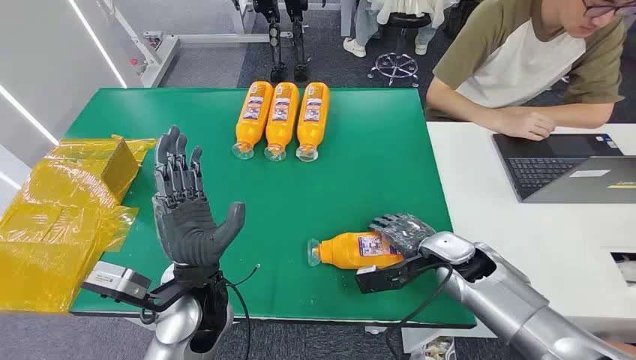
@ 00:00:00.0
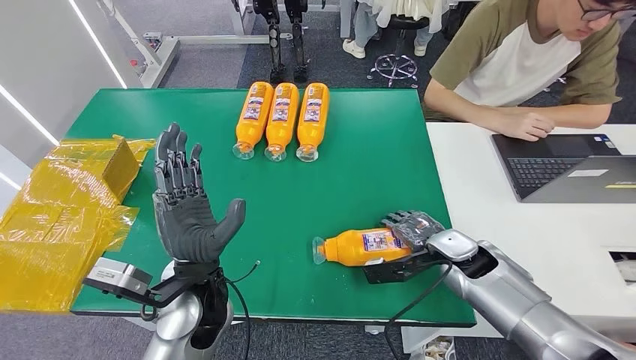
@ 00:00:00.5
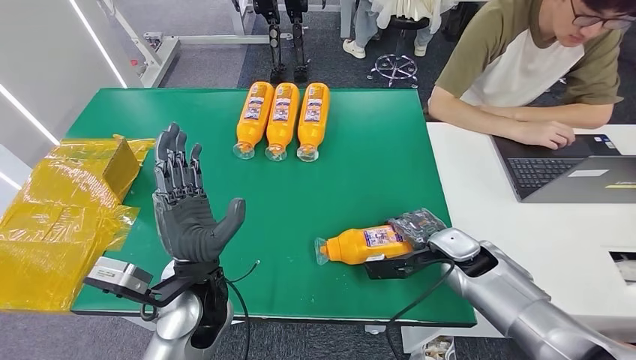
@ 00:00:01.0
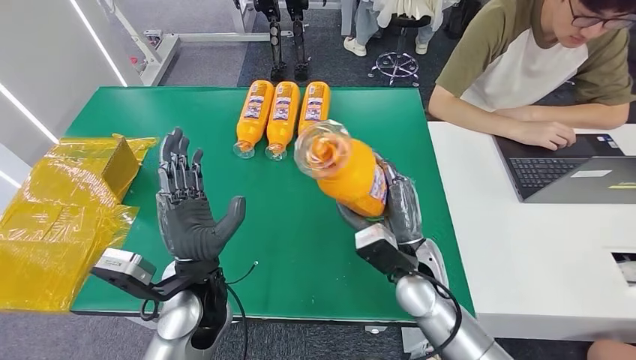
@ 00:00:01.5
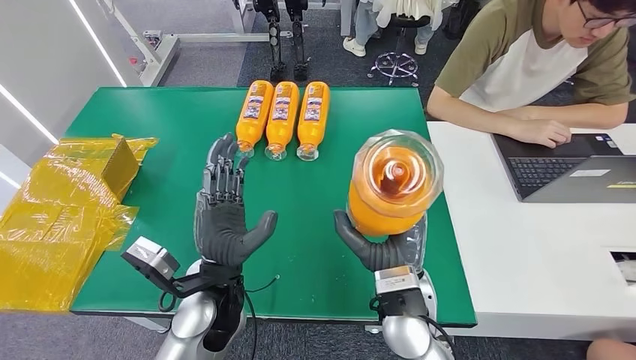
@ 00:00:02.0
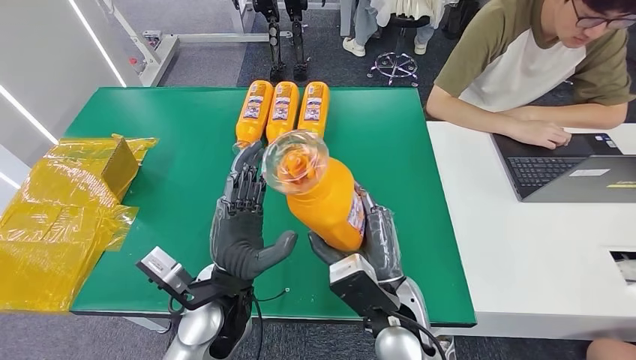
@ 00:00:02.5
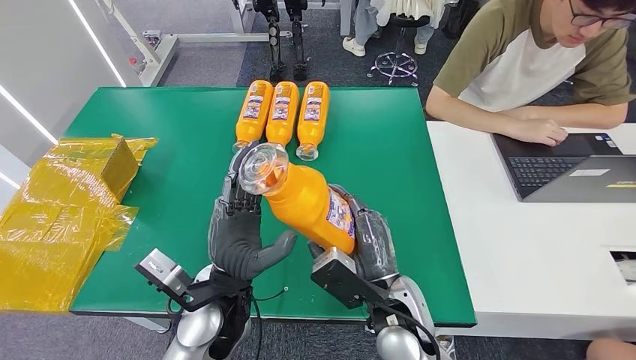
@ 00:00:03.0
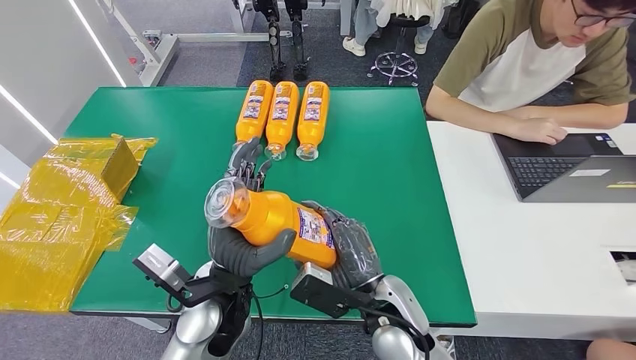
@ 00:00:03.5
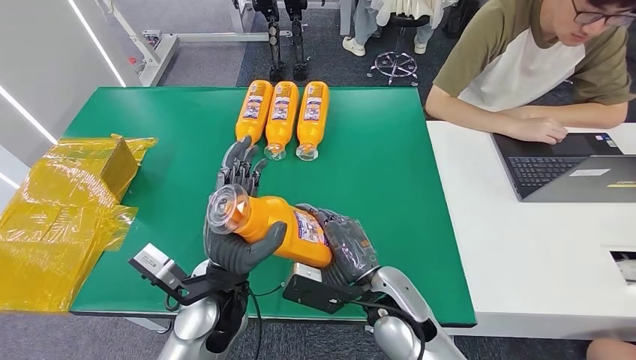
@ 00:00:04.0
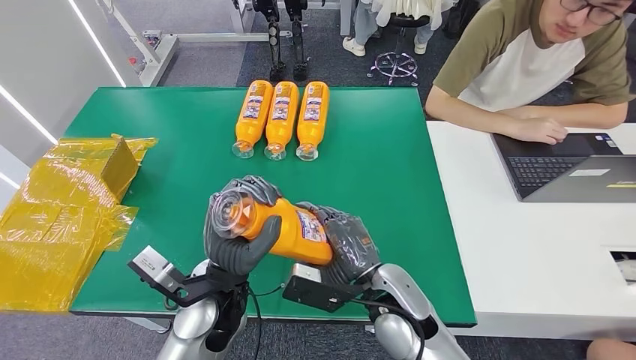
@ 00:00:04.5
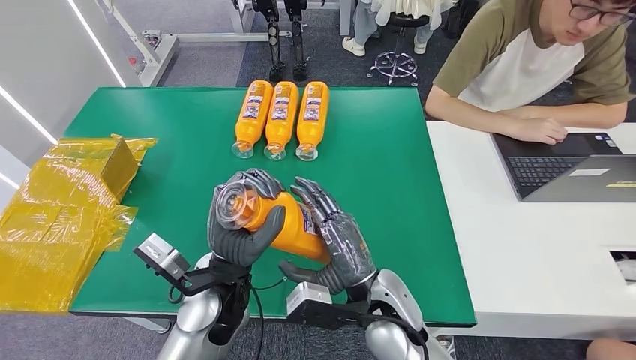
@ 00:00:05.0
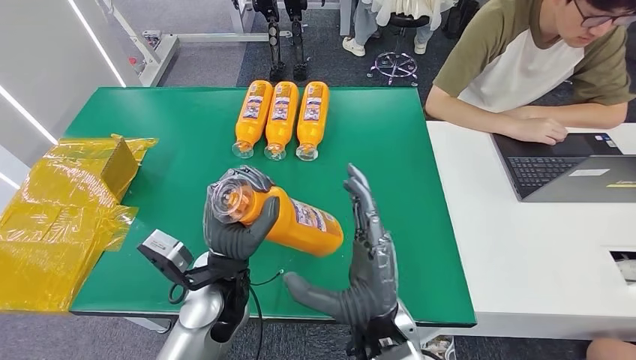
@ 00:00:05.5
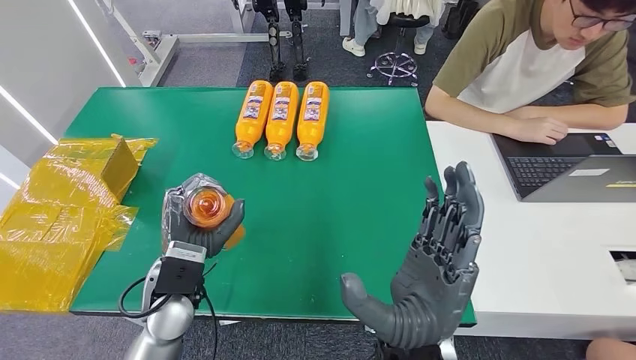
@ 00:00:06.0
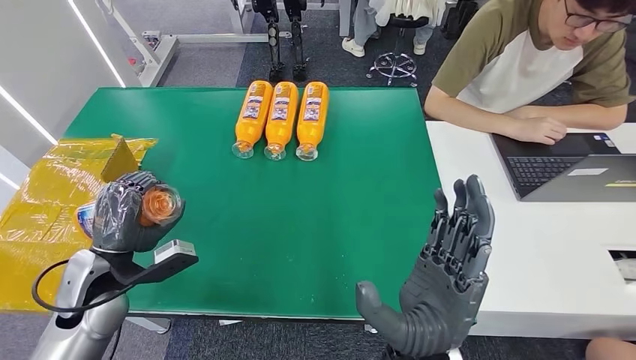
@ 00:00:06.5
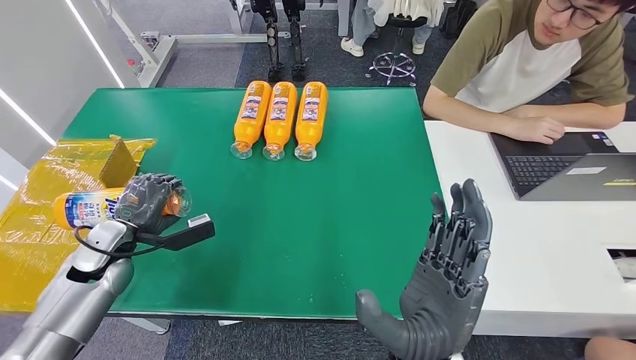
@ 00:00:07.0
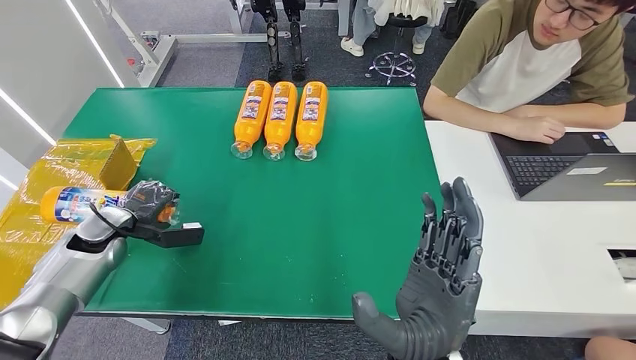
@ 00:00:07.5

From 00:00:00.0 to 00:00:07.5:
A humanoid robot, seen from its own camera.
Step, from 00:00:00.0 to 00:00:02.5: Pick up the bottle from the table.
Step, from 00:00:03.0 to 00:00:07.5: Turn the bottle to the front side.
From 00:00:04.0 to 00:00:05.5: The right hand ends up approximately 5 cm from where it was.
